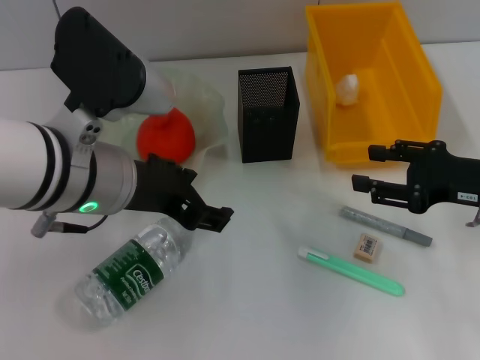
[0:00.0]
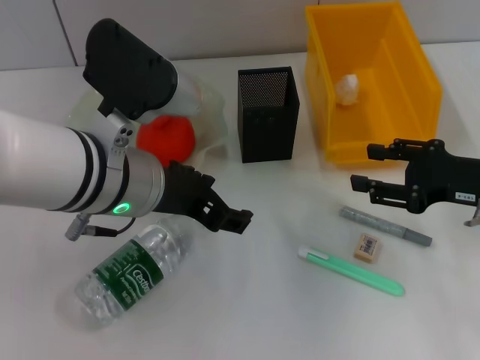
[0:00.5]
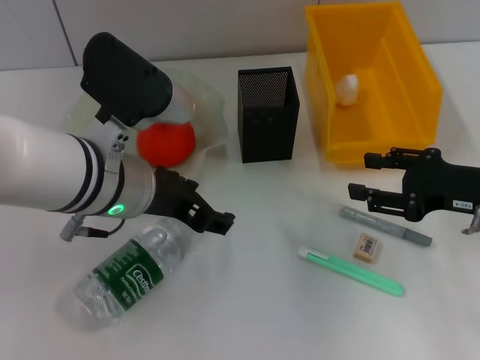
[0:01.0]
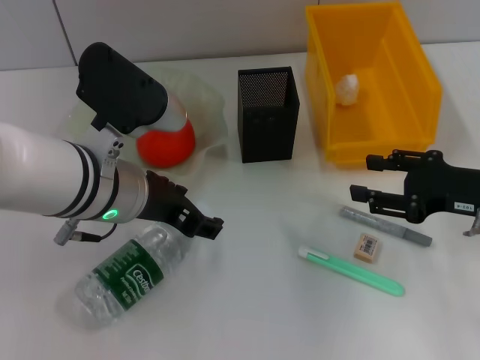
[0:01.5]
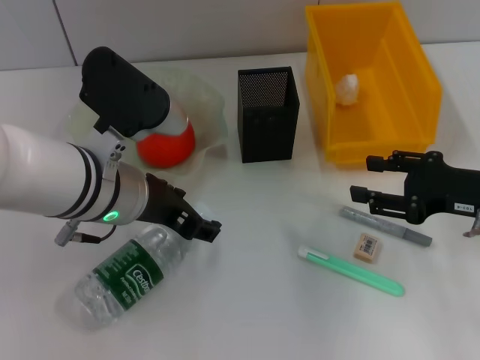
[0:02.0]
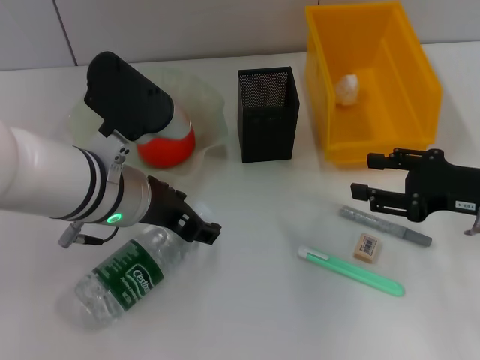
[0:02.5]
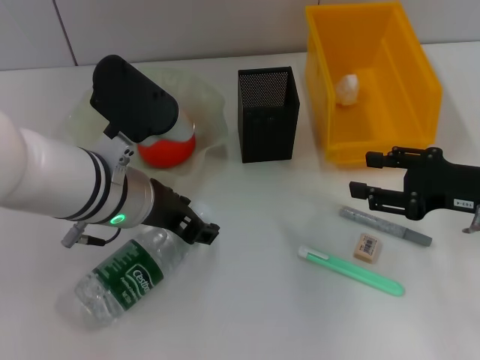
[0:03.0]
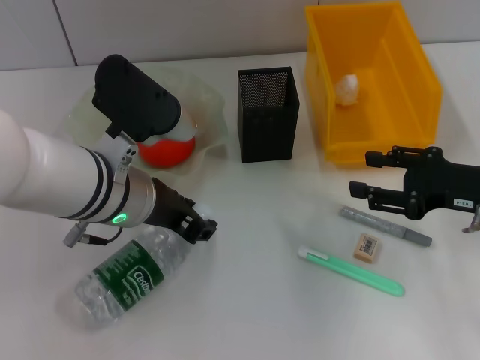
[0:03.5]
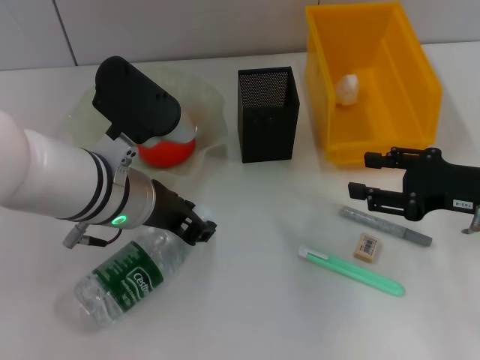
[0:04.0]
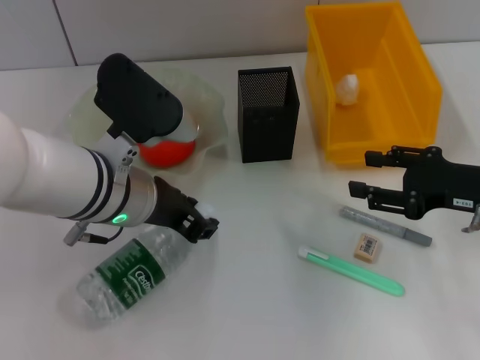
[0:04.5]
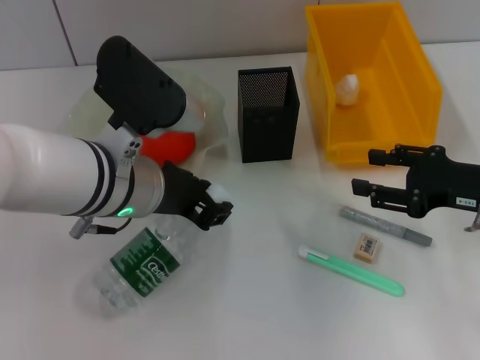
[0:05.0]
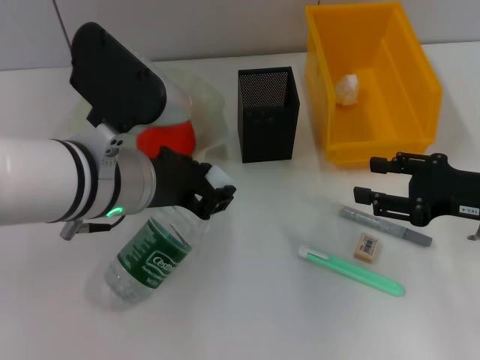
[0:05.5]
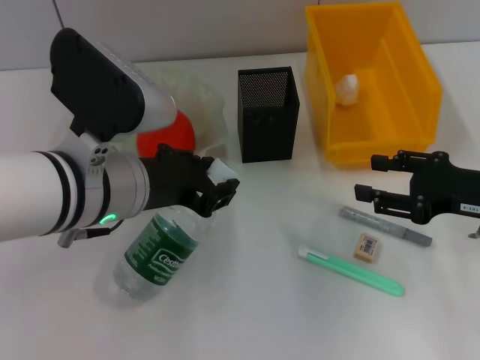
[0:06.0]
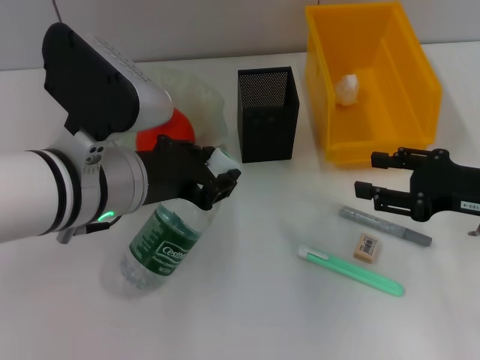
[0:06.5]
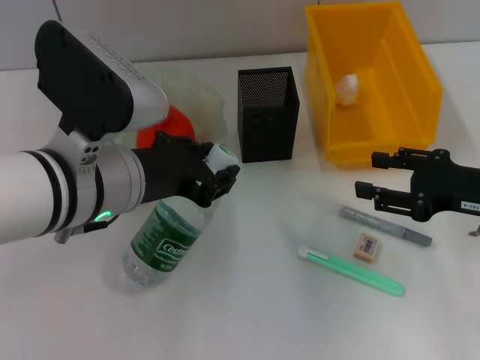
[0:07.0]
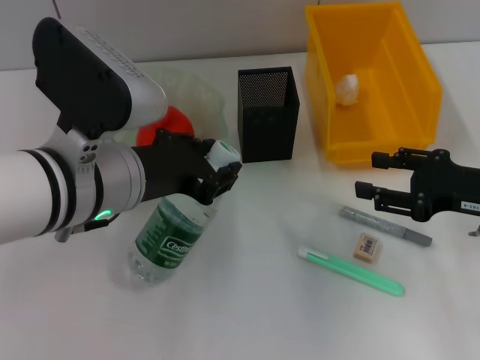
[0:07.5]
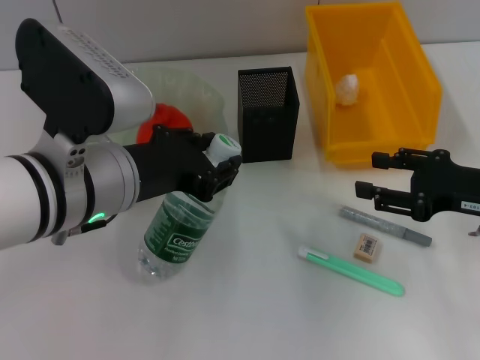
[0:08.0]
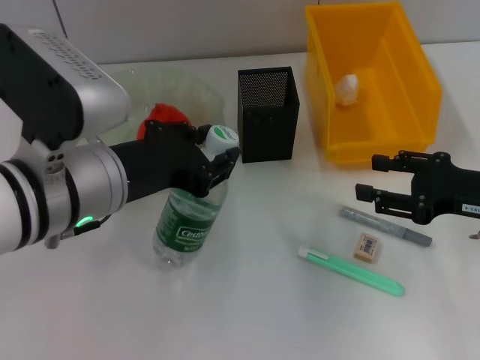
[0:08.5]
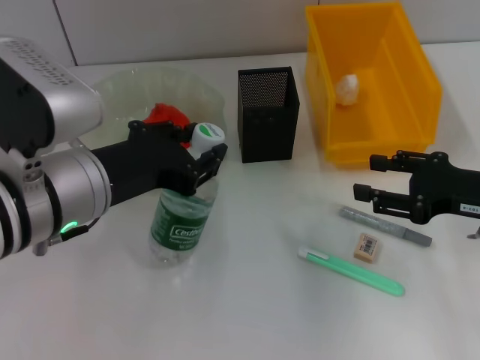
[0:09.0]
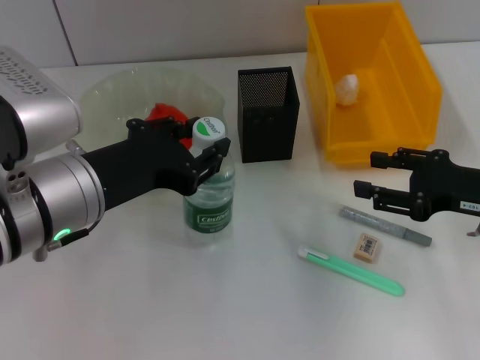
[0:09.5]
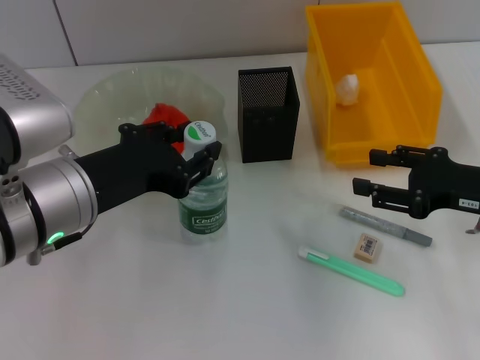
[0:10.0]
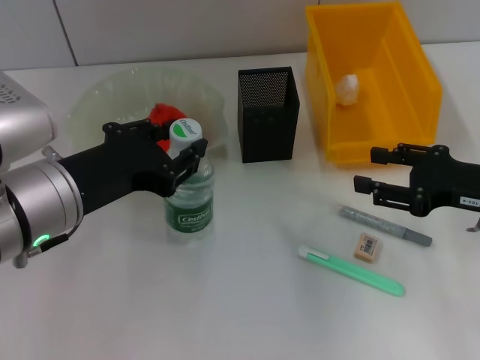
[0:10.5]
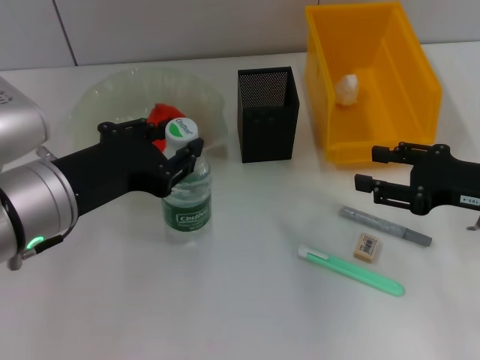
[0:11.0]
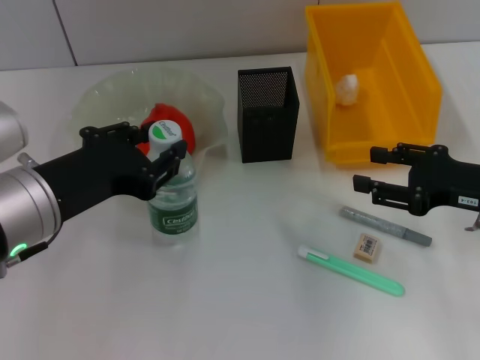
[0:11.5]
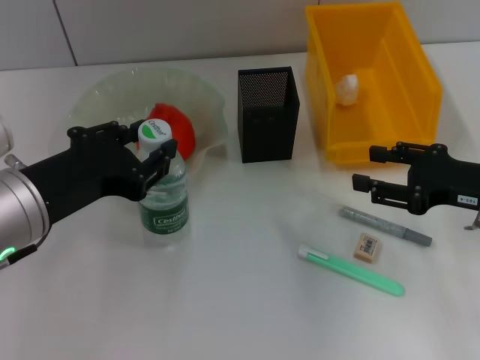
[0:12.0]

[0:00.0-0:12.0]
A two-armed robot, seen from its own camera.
Step, 0:00.0 to 0:04.0: Grab the water bottle with the left hand.
0:00.0 to 0:02.0: The grippers stay close to where they were, moving slightly.
0:02.0 to 0:04.0: The left gripper closes its fingers.
0:04.0 to 0:06.0: There are only small adjustments of the grippers.
0:06.0 to 0:08.0: There are only small adjustments of the grippers.
0:08.0 to 0:10.0: The grippers make only small movements.
0:10.0 to 0:12.0: There are only small adjustments of the grippers.

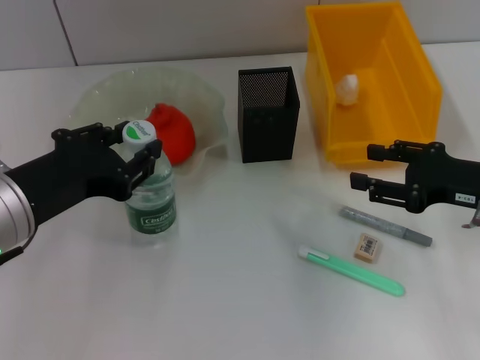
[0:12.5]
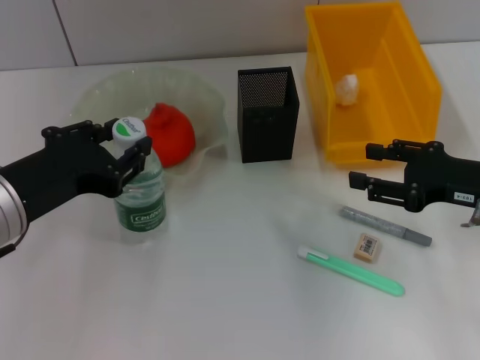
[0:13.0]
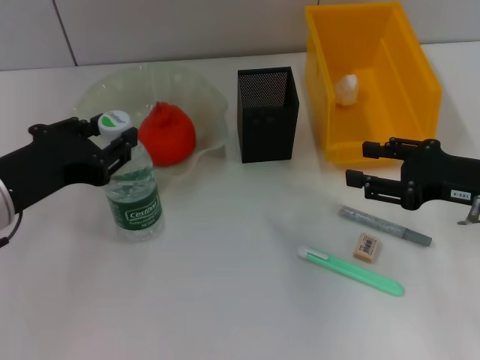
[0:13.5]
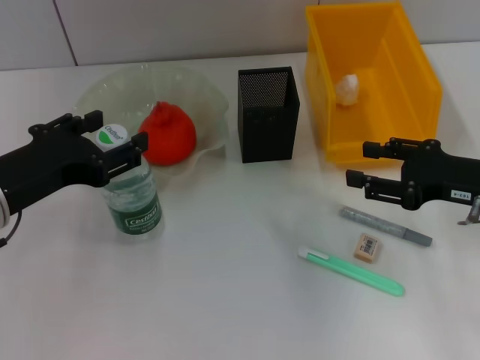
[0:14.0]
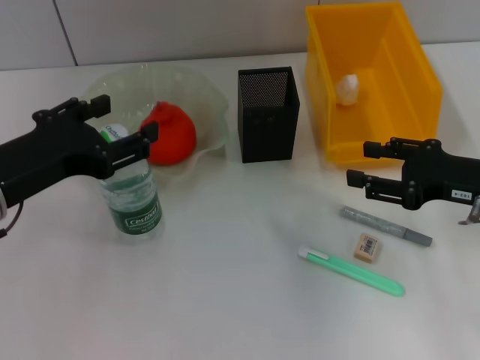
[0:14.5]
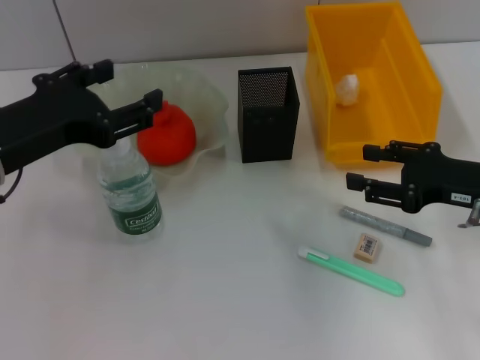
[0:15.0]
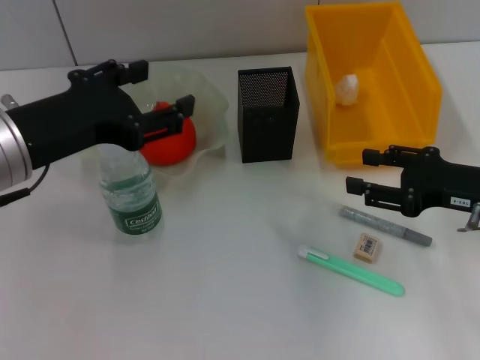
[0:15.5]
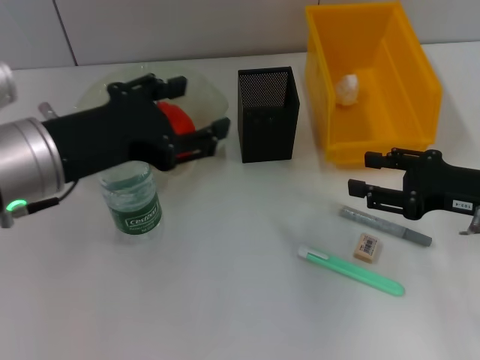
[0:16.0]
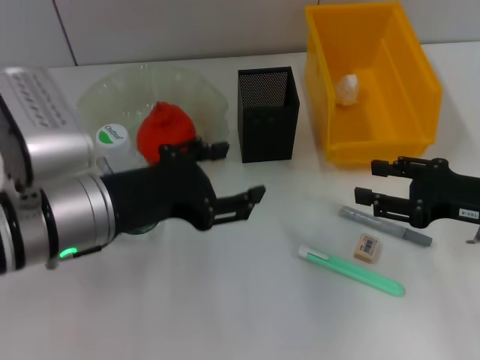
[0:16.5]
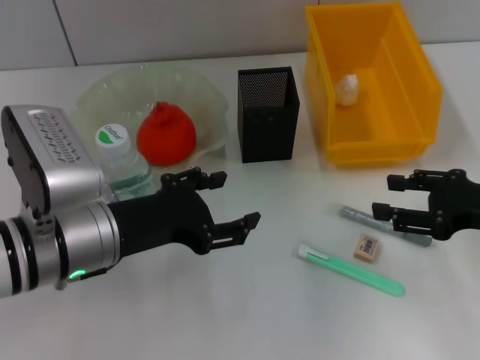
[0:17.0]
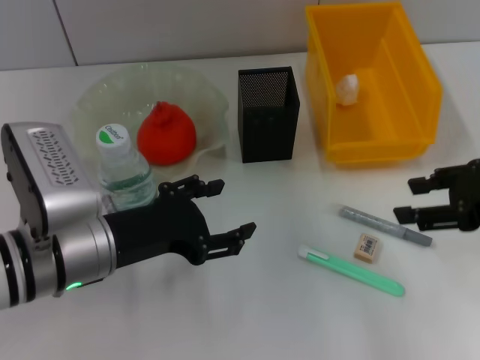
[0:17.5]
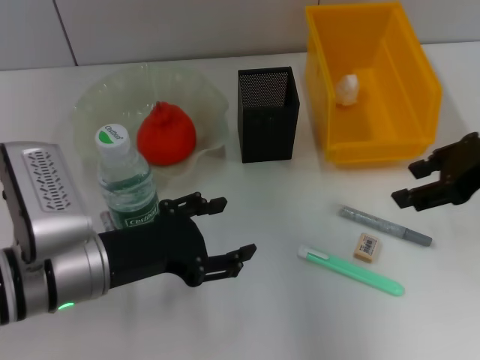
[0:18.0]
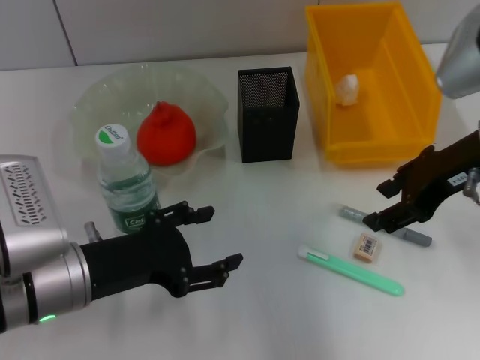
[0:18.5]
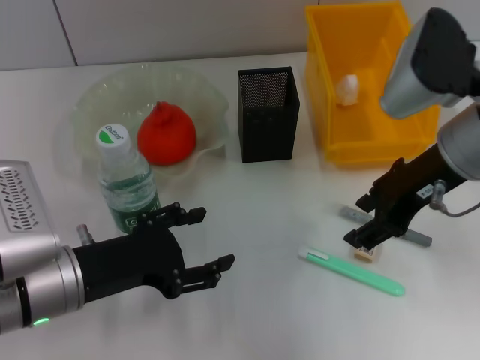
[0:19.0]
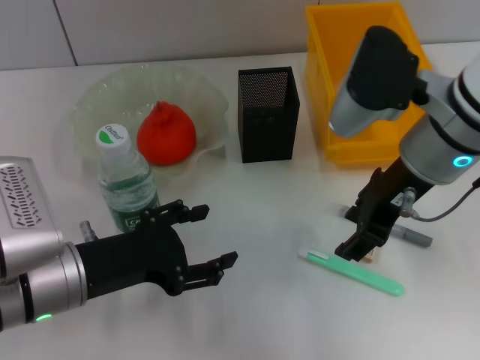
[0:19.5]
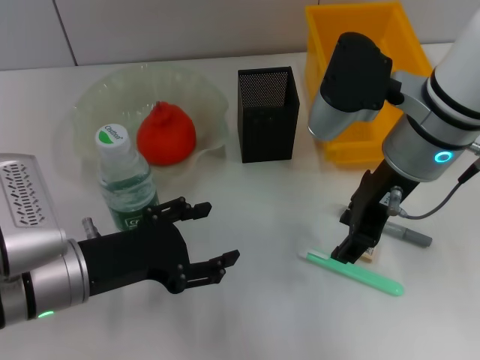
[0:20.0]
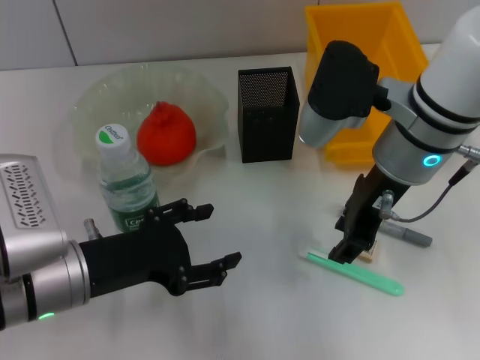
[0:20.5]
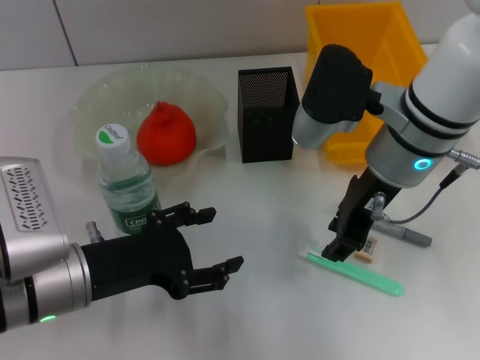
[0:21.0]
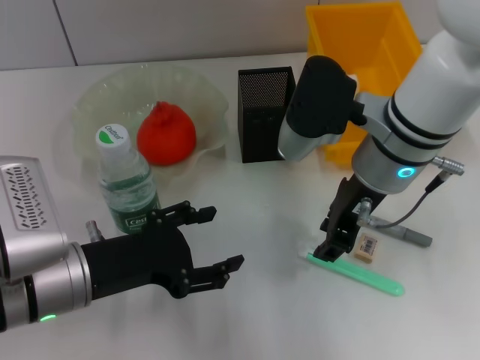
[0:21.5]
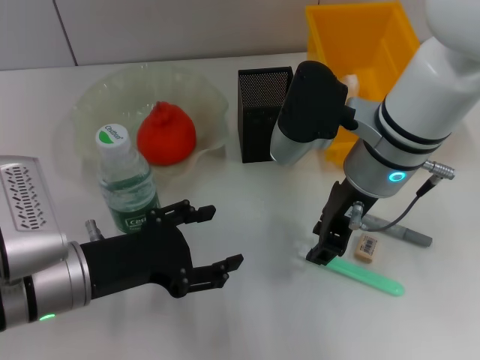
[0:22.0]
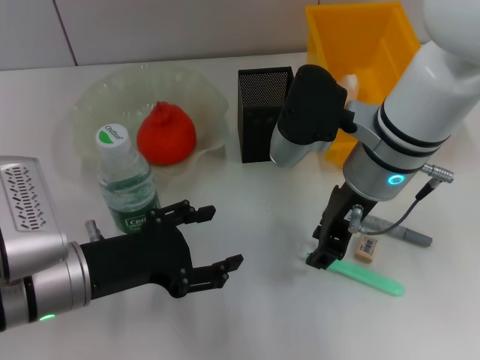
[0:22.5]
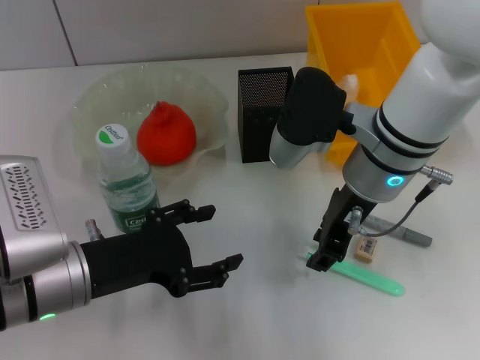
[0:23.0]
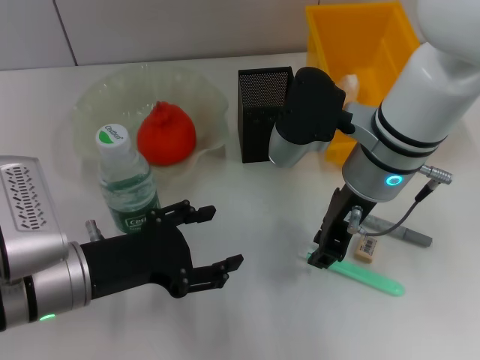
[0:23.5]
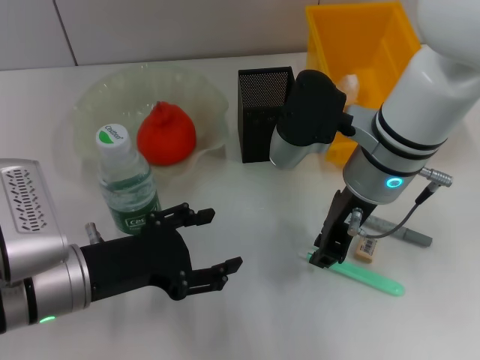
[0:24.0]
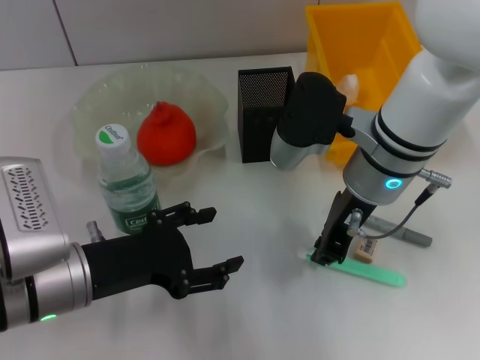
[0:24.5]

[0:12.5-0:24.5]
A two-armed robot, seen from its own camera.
0:12.5 to 0:14.5: The left gripper opens up.
0:14.5 to 0:16.5: The left gripper shifts approximately 5 cm to the right.
0:16.5 to 0:18.5: The left gripper heads downward, covering roughly 5 cm. Meanwhile the right gripper is displaced upward and to the left by approximately 15 cm.
0:18.5 to 0:20.5: The right gripper heads to the left, covering roughly 10 cm.
0:20.5 to 0:22.5: The grippers stay close to where they were, moving slightly.
0:22.5 to 0:24.5: Neither gripper changes place.

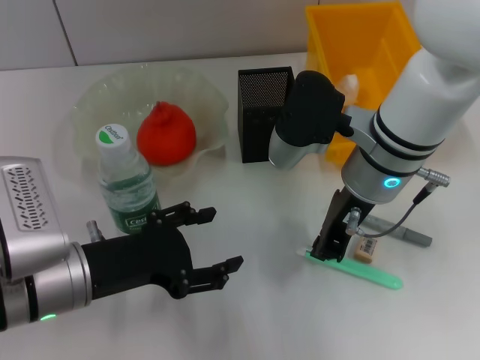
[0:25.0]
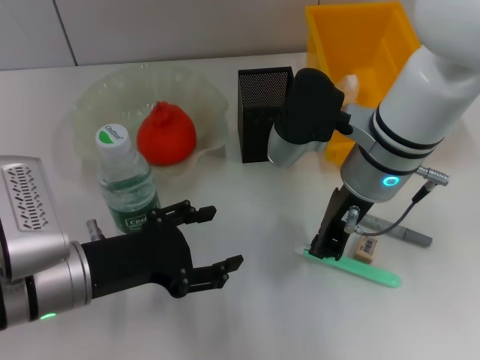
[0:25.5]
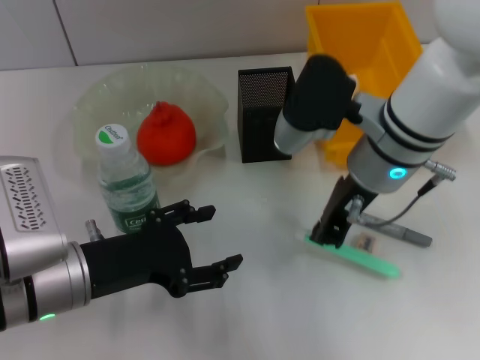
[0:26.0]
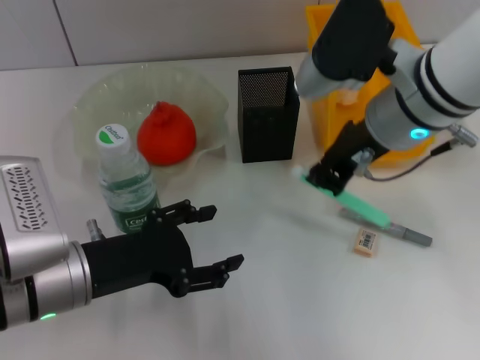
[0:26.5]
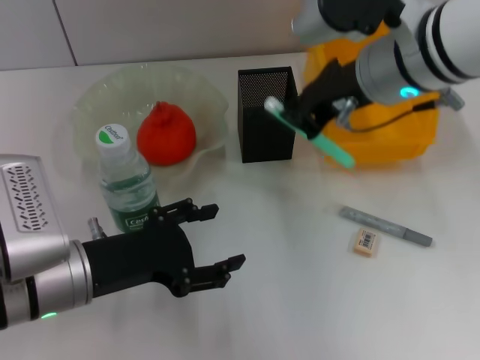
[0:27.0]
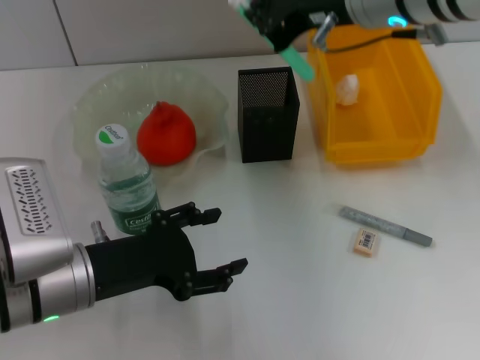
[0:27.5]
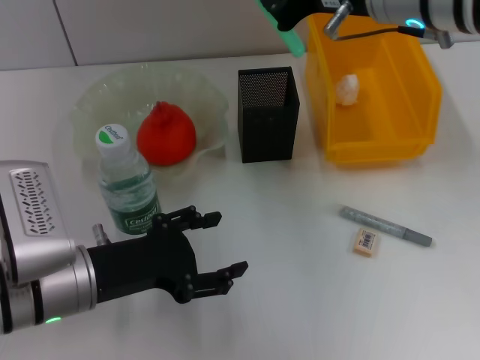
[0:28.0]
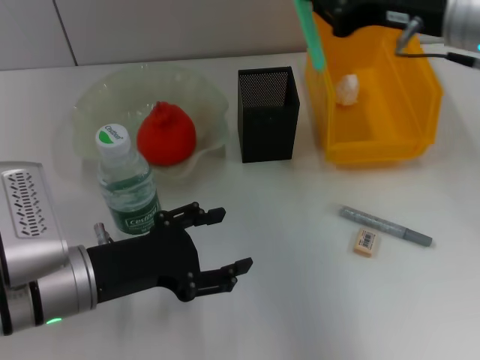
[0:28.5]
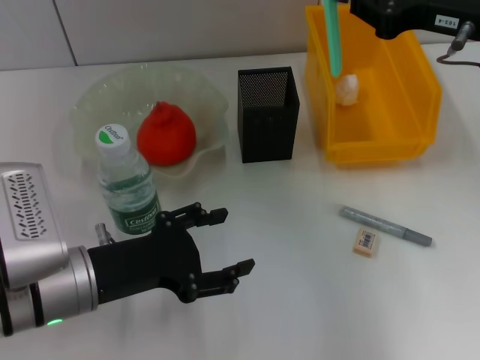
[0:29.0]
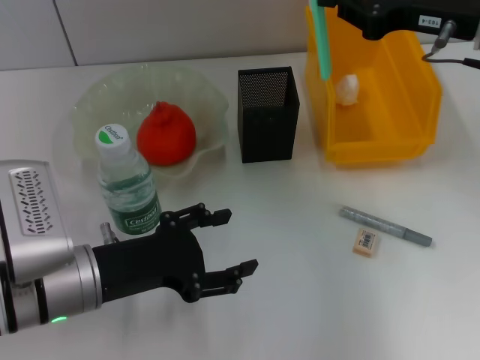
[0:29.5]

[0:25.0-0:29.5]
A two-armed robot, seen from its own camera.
0:25.0 to 0:27.0: The right gripper moves upward, roughly 10 cm.
0:27.0 to 0:29.5: The right gripper goes approximately 10 cm to the right.
